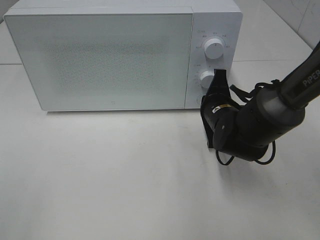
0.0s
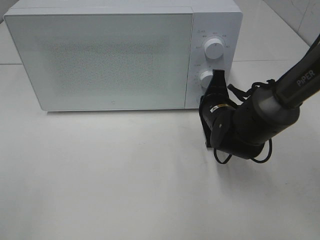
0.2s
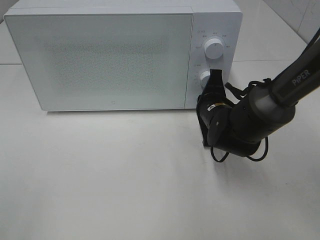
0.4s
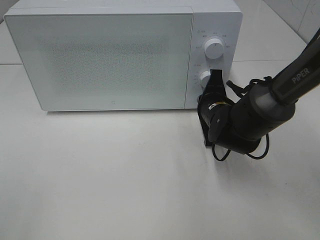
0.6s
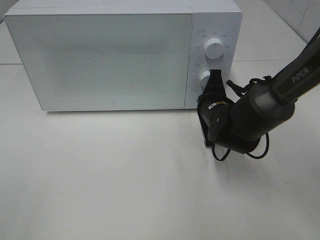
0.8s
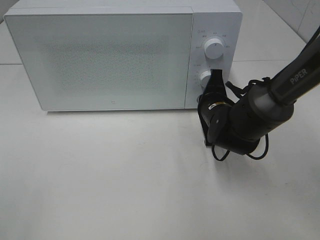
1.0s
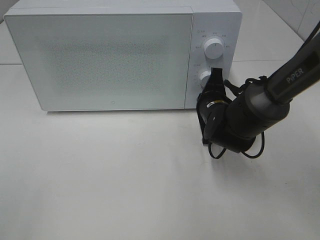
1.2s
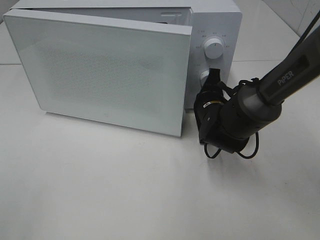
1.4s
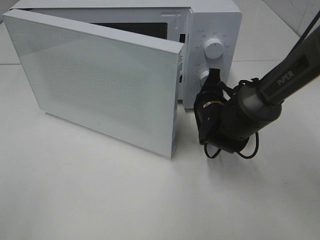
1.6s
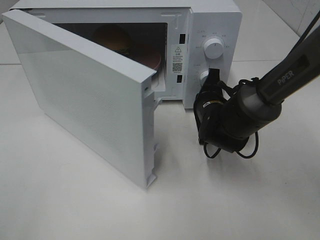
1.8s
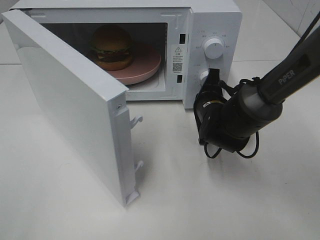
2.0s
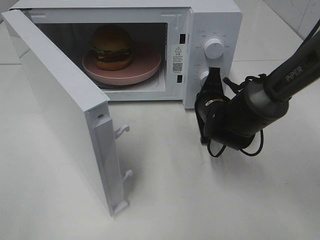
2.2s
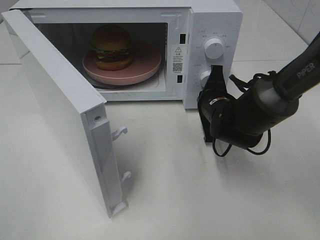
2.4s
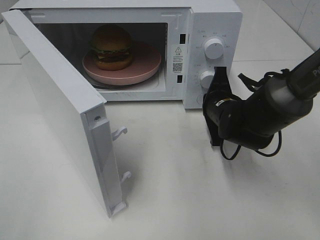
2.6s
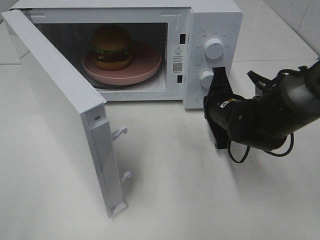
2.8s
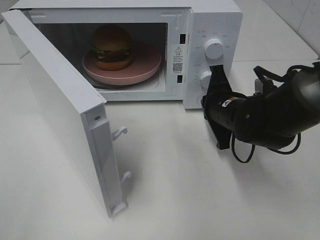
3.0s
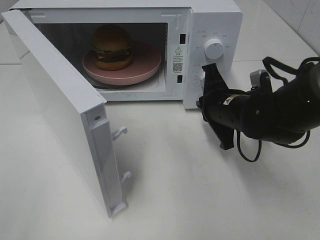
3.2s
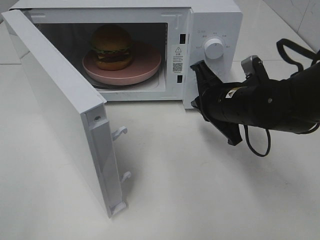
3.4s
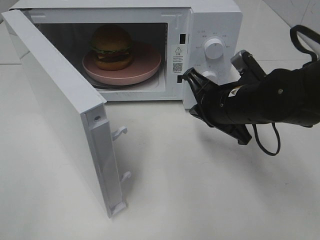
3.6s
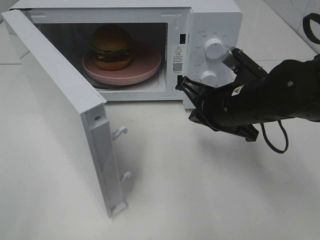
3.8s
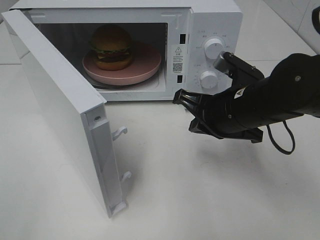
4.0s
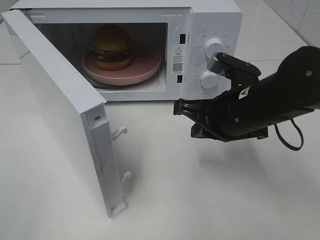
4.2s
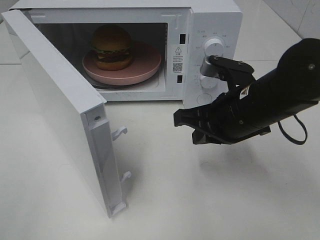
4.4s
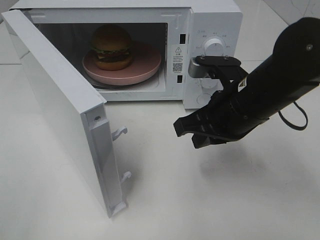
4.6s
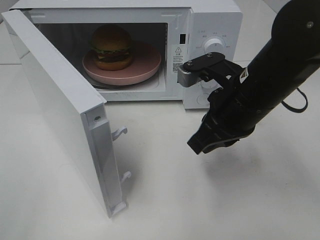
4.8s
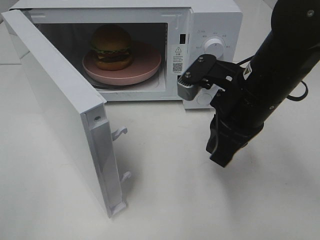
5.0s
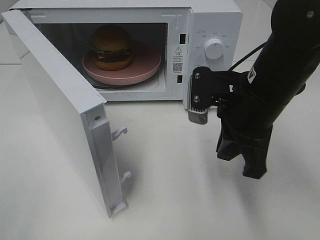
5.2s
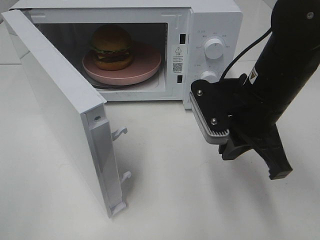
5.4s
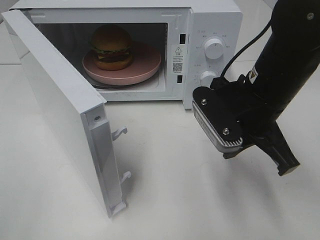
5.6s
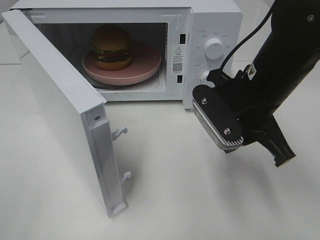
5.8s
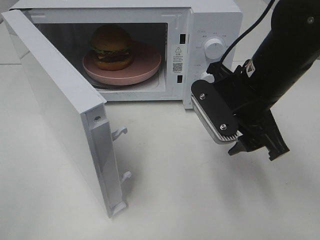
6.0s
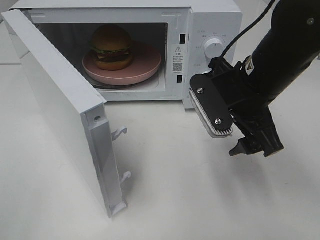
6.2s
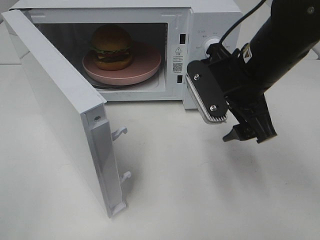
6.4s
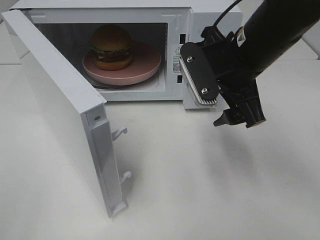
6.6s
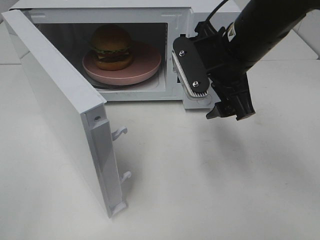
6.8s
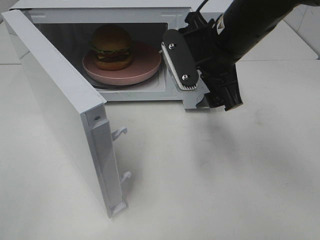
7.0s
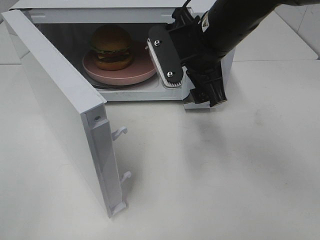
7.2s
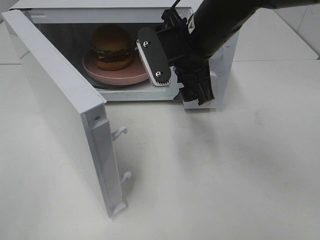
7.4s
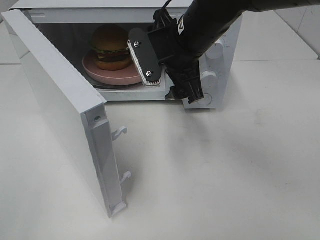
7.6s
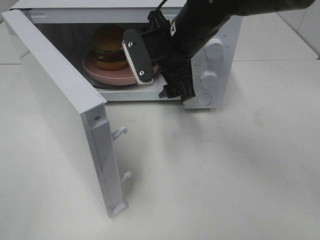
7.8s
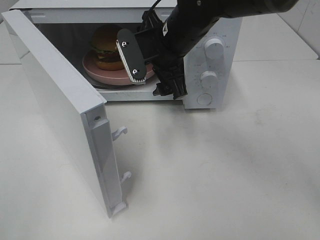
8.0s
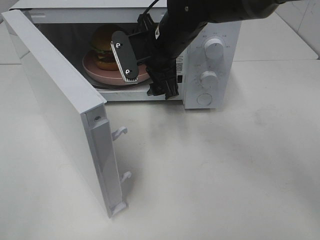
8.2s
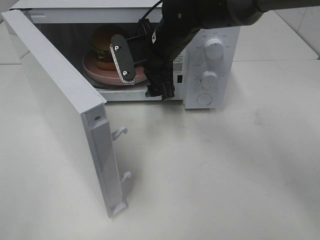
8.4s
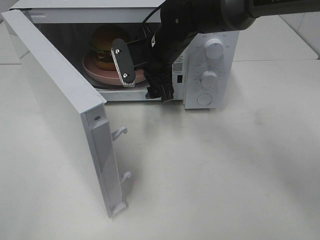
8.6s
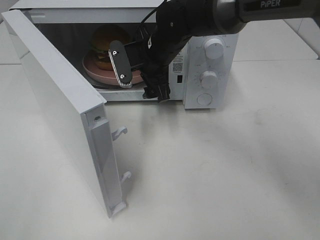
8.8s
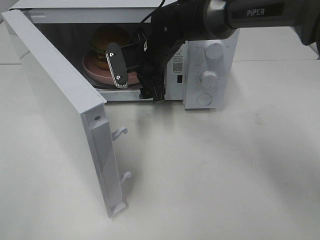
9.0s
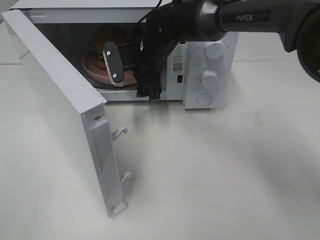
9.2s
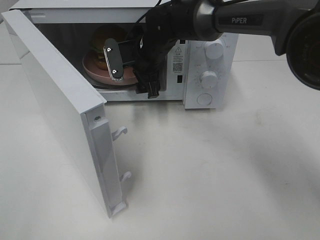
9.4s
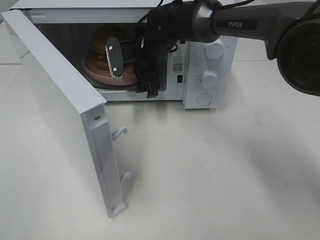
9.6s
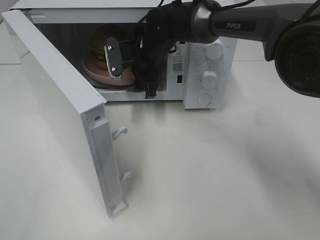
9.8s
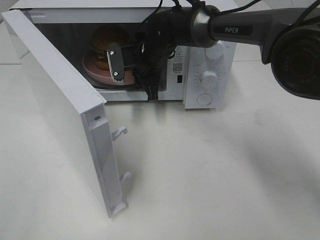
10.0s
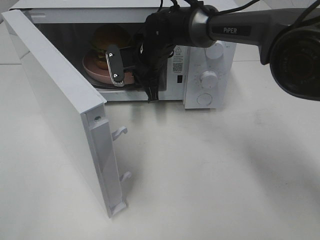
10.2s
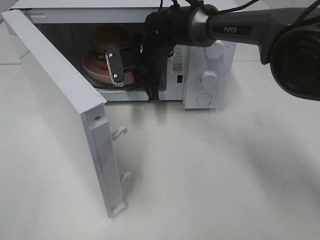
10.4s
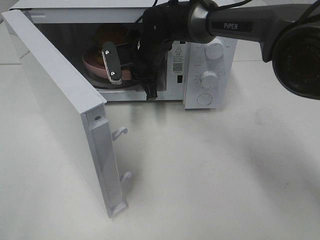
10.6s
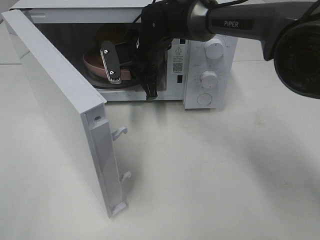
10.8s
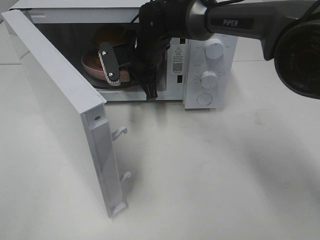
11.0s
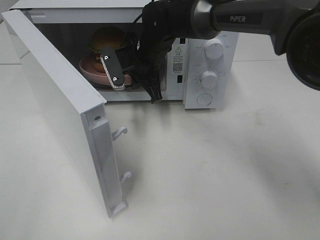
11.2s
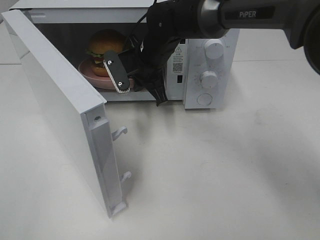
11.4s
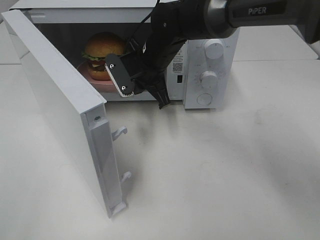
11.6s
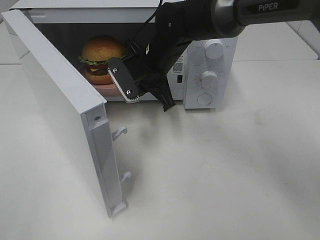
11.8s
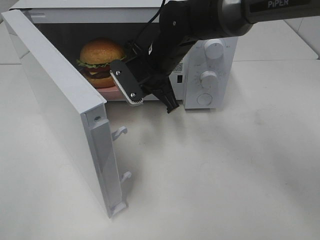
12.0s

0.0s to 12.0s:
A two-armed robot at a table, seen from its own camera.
Task of the whole recording: Heat the burger.
Step, 0.0s to 3.0s: Right hand: press the switch.
Step, 3.2s to 10.8s: Right hand: grab the plate with the hamburger.
0.0s to 1.6s: The grippers make only small movements.
1.6s to 3.0s: The right gripper changes place by roughly 5 cm.
3.0s to 4.4s: The right gripper moves upward and backward, about 10 cm.
4.4s to 6.0s: The right gripper opens.
6.0s to 7.6s: The right gripper goes roughly 10 cm to the left and forward.
7.6s to 9.0s: The right gripper is displaced forward and downward by about 10 cm.
9.0s to 10.4s: The right gripper closes its fingers.
10.4s to 12.0s: The right gripper goes some 5 cm backward.

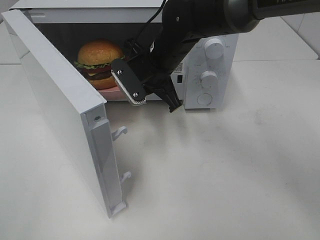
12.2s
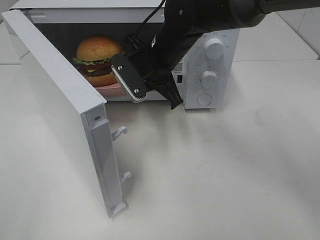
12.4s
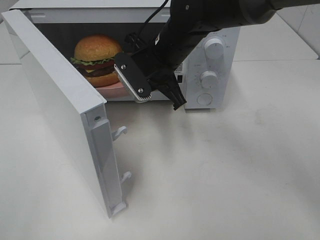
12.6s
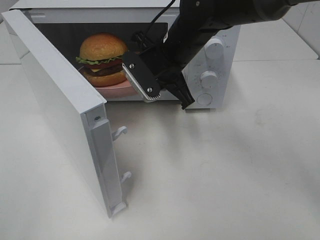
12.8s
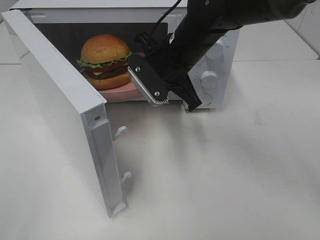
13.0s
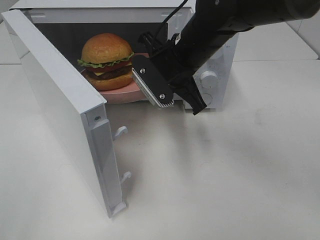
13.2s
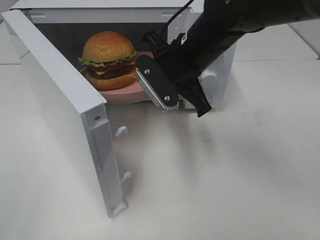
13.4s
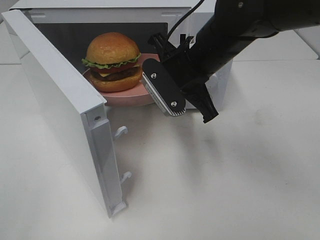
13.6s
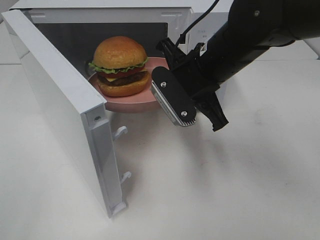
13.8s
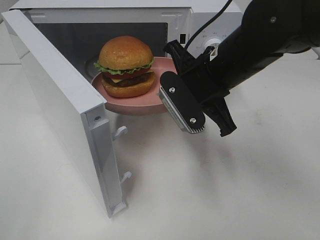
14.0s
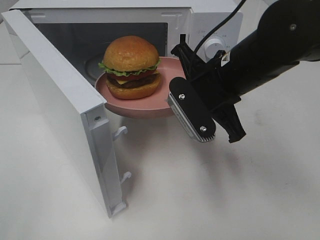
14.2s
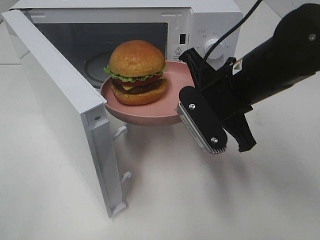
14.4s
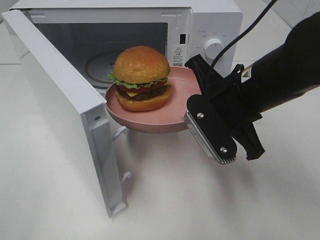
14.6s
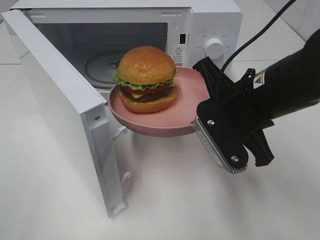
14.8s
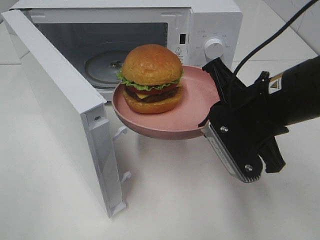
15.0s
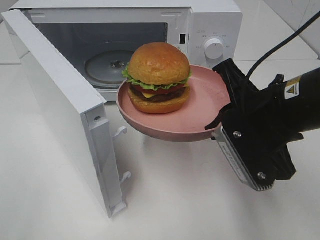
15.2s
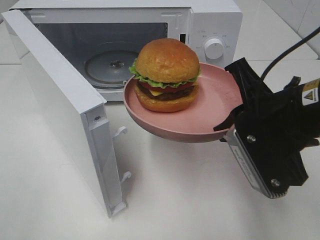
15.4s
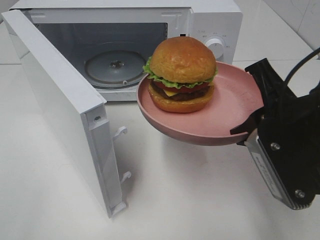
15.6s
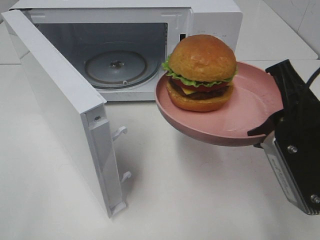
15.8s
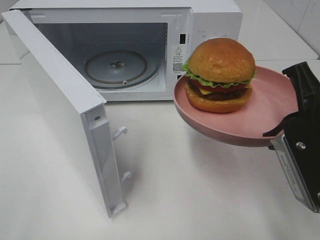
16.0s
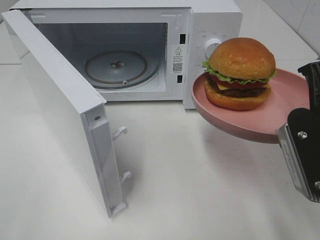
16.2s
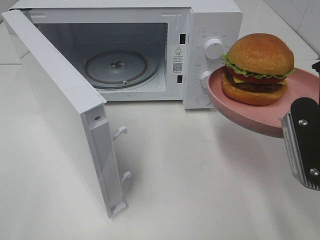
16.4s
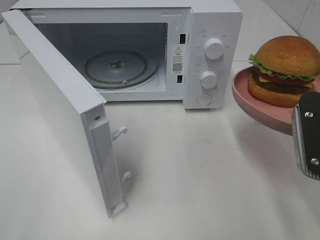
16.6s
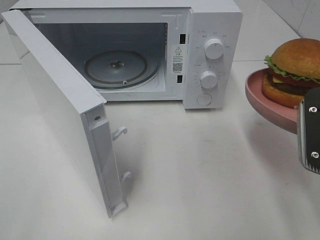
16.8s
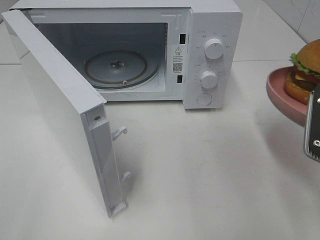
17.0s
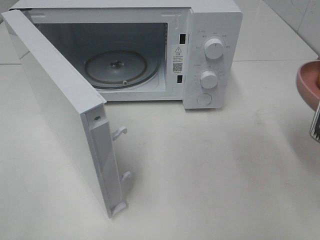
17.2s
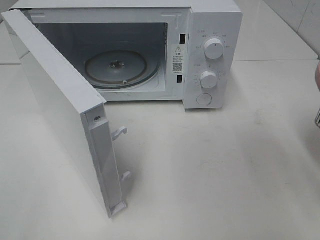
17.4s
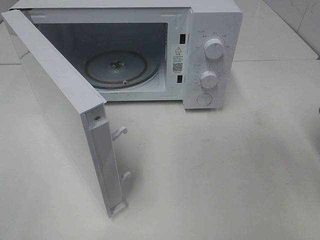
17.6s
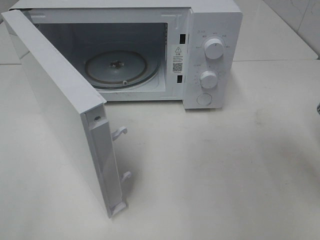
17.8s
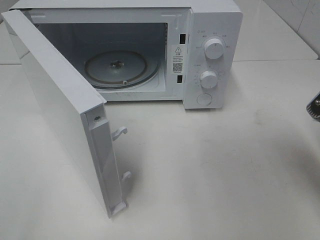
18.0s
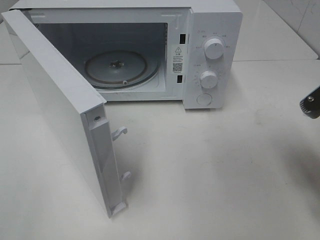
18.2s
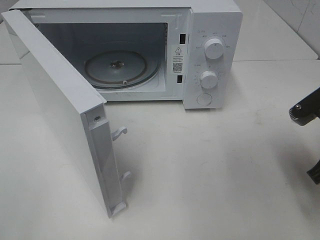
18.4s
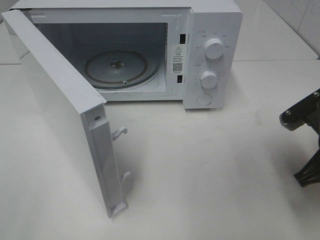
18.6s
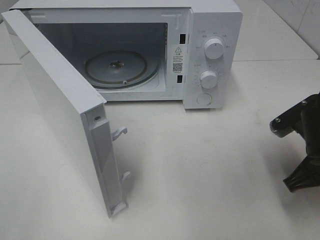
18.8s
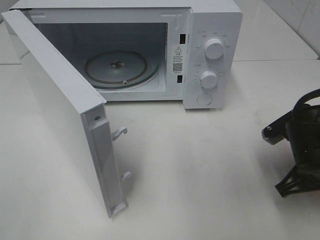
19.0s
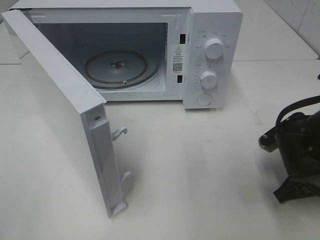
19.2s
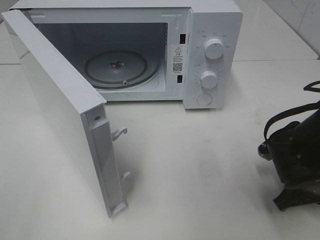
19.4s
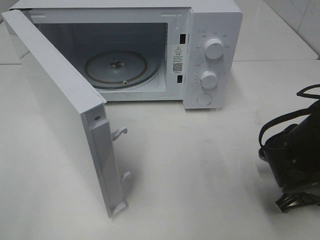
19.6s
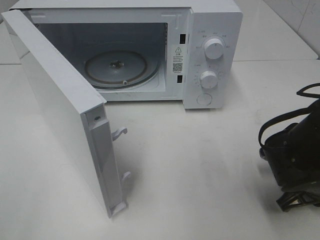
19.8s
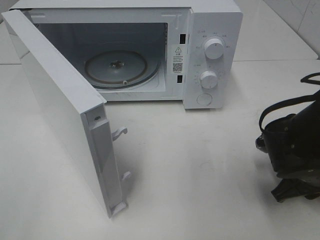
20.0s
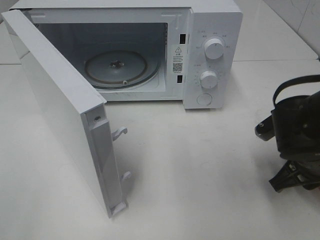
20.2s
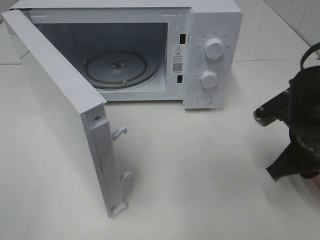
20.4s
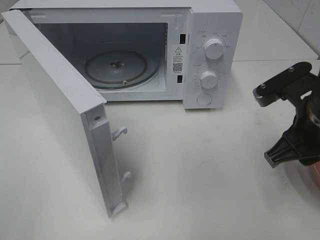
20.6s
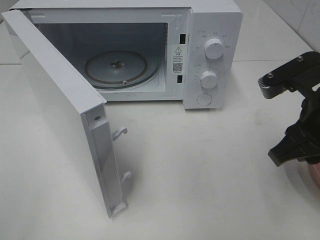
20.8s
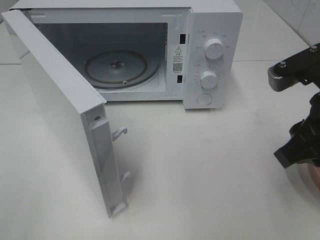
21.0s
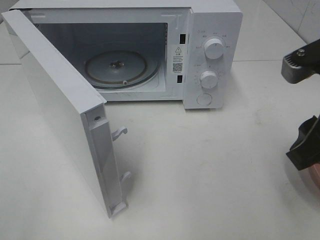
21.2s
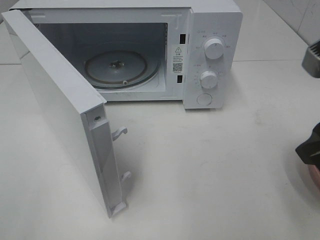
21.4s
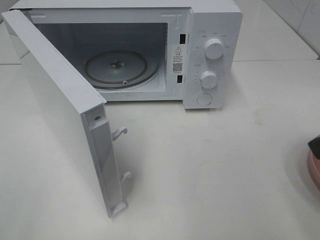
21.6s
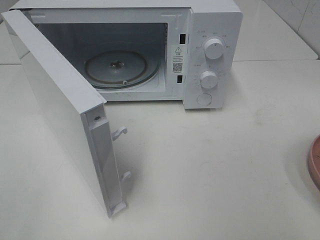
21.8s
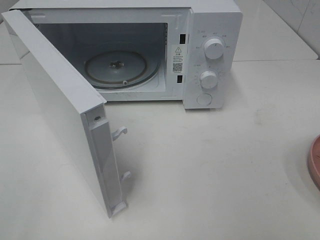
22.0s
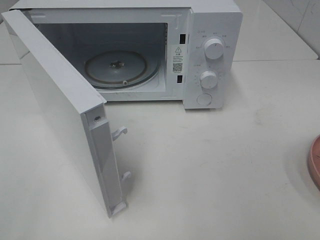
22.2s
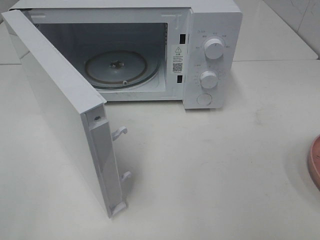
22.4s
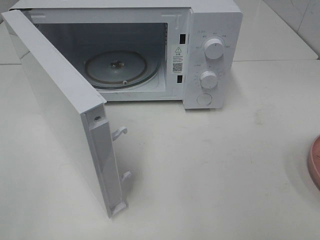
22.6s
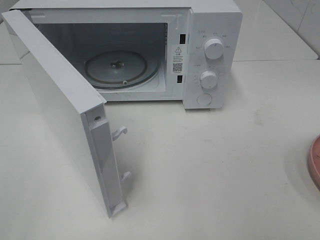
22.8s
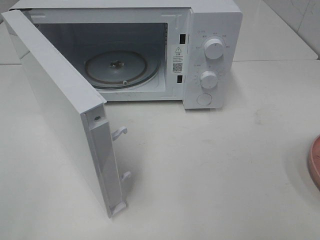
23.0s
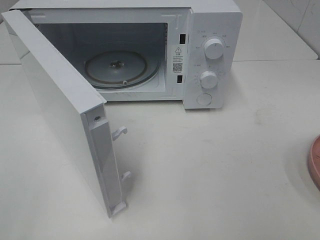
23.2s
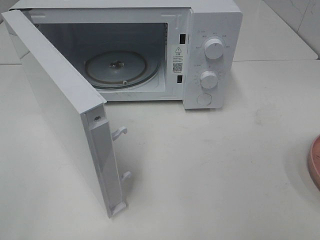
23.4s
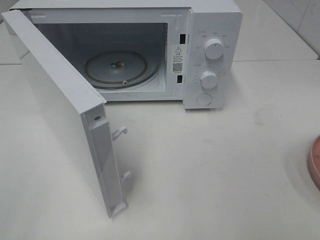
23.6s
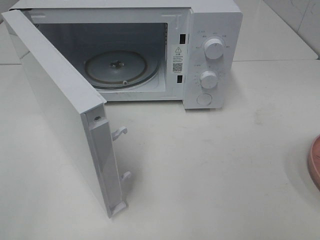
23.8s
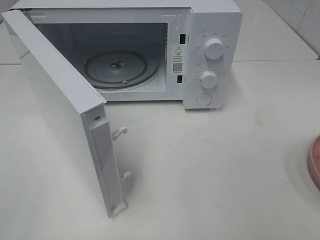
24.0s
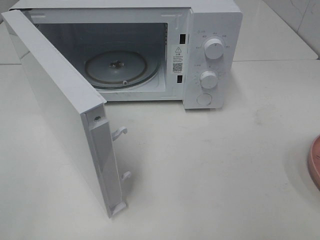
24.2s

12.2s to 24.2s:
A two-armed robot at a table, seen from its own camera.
Task of the whole recording: Heat the burger.
Step, 12.2s to 20.6s: Right hand: place the plate on the table.
12.2s to 13.8s: The right gripper moves backward and to the right, about 10 cm.
13.8s to 15.2s: The right gripper moves backward and to the right, approximately 10 cm.
15.2s to 16.6s: The right gripper moves to the right, approximately 5 cm.
16.6s to 18.2s: The right gripper changes place by roughly 5 cm.
18.2s to 19.8s: The right gripper shifts approximately 10 cm downward.
19.8s to 21.2s: The right gripper shifts approximately 20 cm upward.
21.2s to 22.6s: The right gripper heads backward and to the right, covering approximately 15 cm.
22.6s to 24.2s: The two grippers keep their place.
